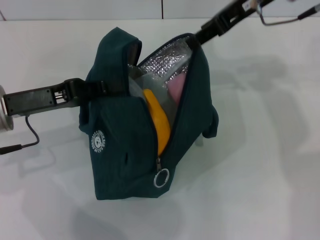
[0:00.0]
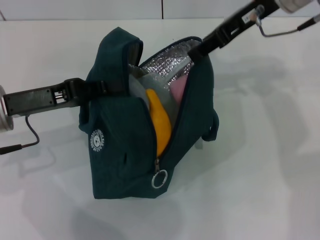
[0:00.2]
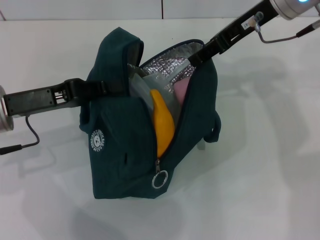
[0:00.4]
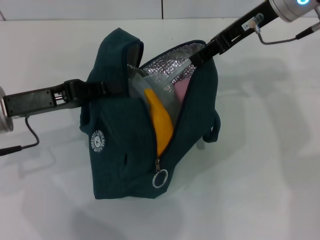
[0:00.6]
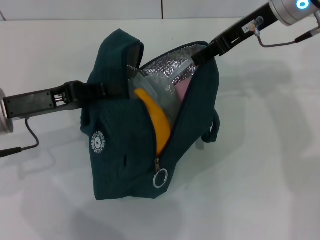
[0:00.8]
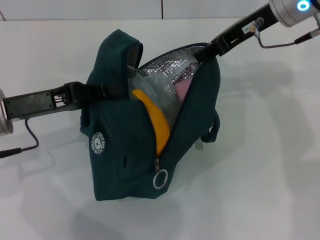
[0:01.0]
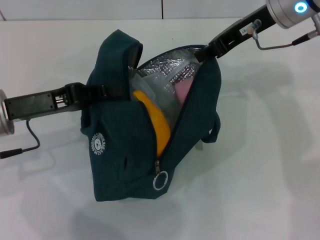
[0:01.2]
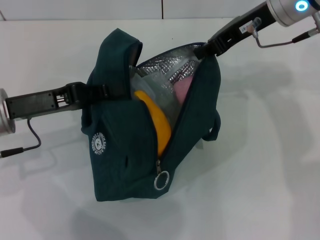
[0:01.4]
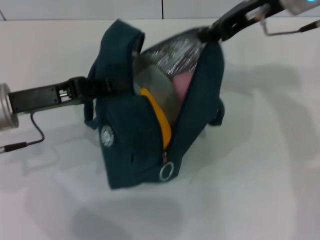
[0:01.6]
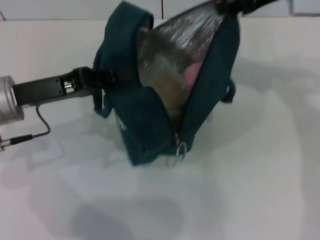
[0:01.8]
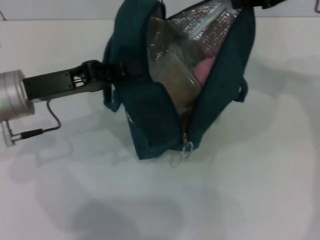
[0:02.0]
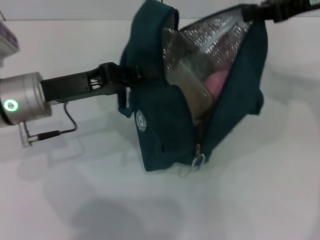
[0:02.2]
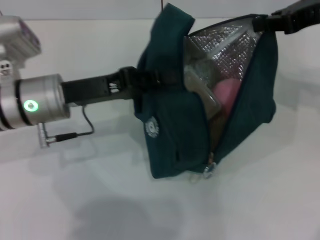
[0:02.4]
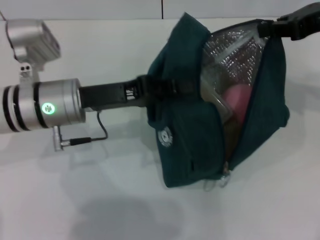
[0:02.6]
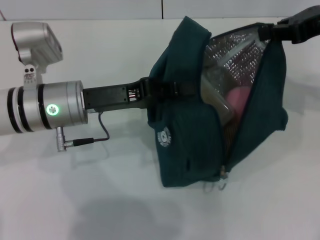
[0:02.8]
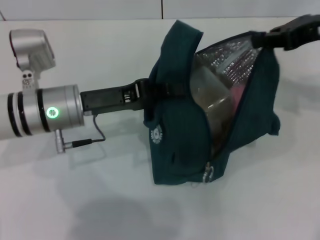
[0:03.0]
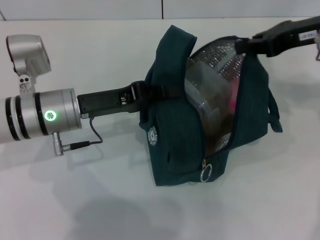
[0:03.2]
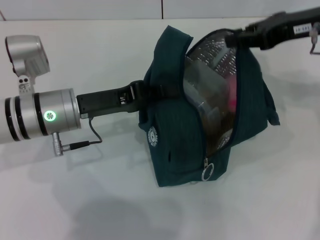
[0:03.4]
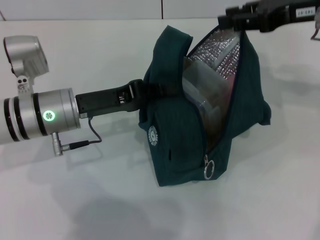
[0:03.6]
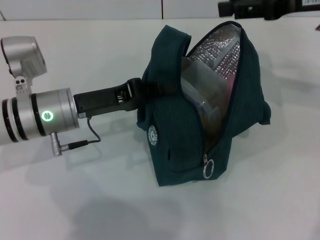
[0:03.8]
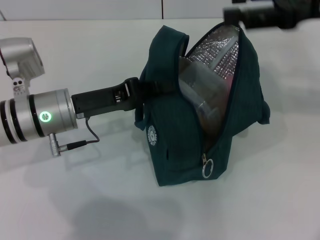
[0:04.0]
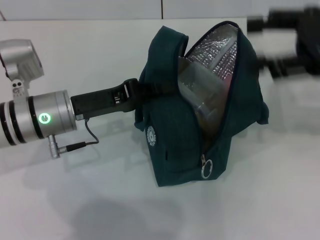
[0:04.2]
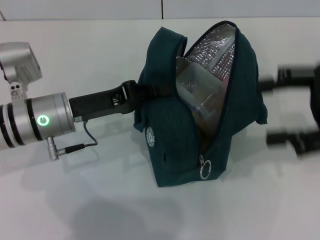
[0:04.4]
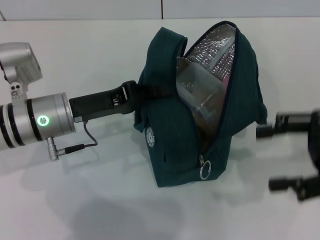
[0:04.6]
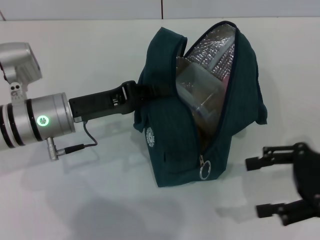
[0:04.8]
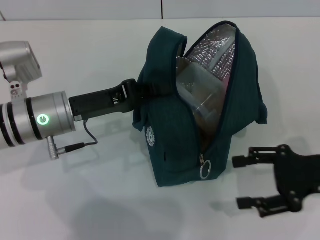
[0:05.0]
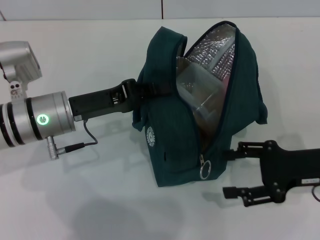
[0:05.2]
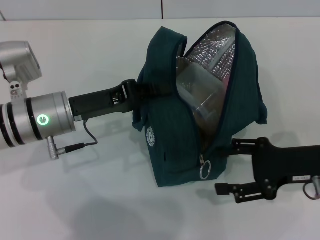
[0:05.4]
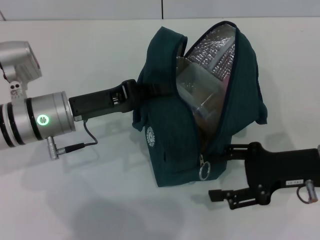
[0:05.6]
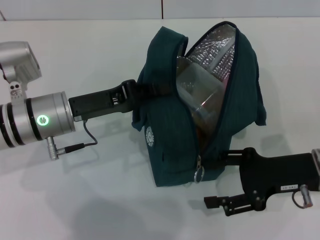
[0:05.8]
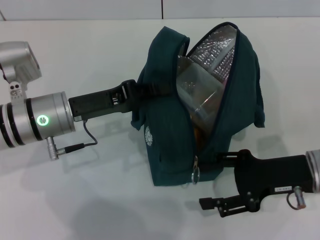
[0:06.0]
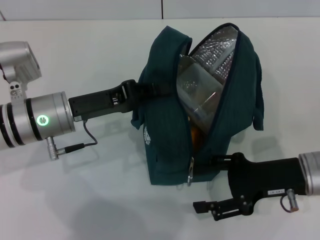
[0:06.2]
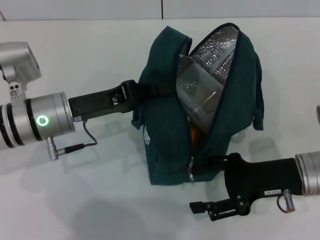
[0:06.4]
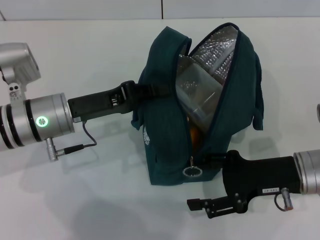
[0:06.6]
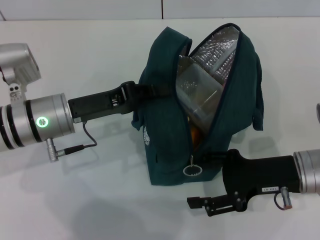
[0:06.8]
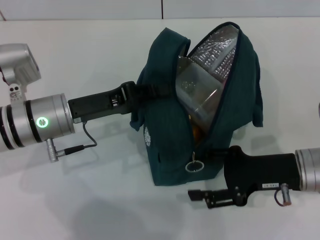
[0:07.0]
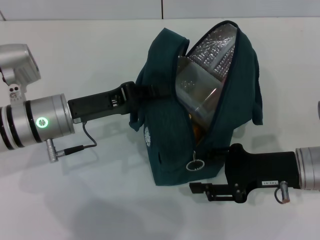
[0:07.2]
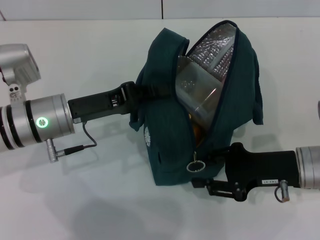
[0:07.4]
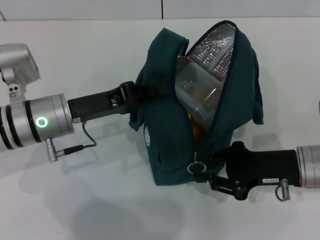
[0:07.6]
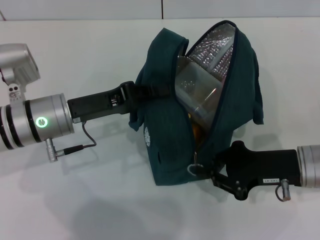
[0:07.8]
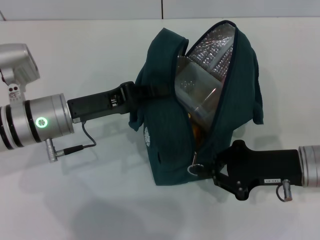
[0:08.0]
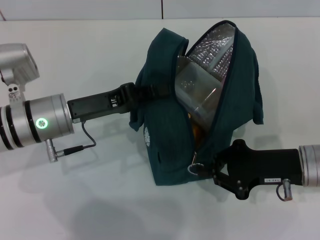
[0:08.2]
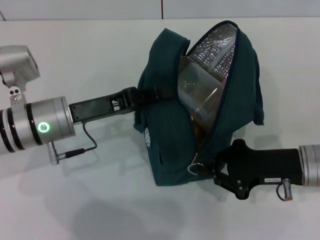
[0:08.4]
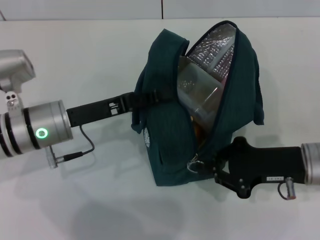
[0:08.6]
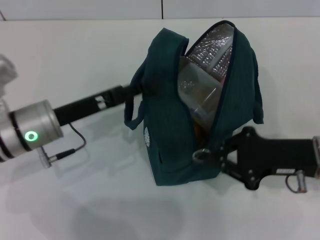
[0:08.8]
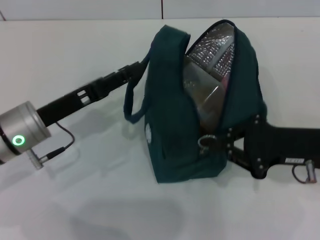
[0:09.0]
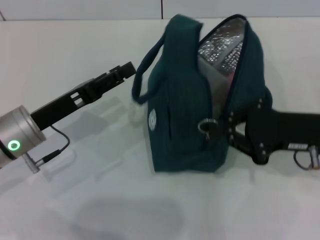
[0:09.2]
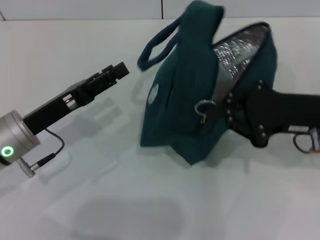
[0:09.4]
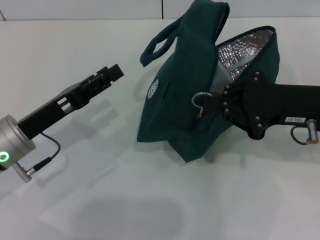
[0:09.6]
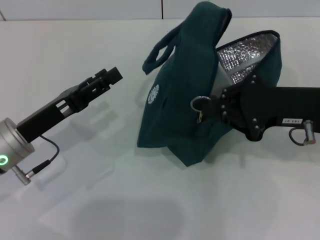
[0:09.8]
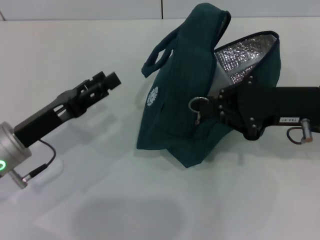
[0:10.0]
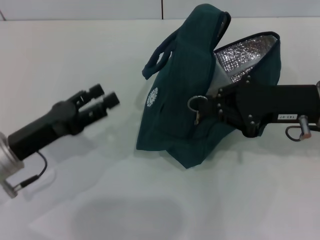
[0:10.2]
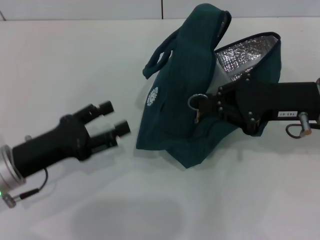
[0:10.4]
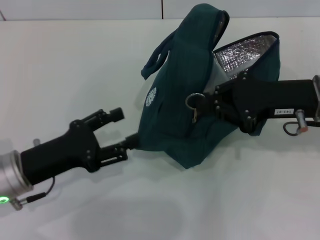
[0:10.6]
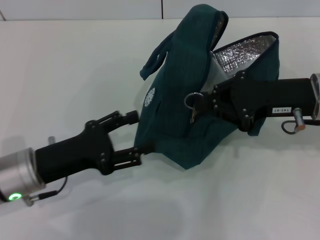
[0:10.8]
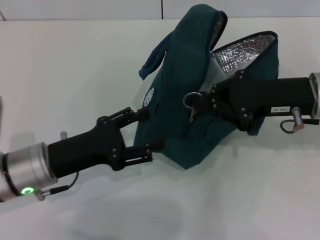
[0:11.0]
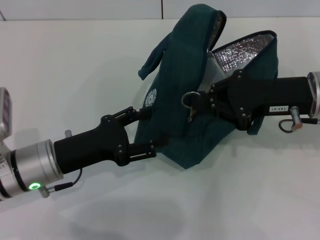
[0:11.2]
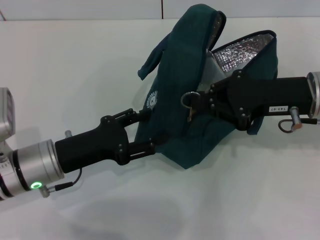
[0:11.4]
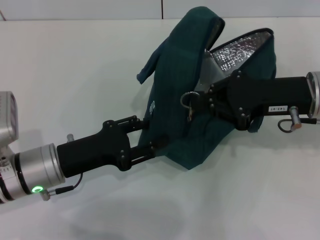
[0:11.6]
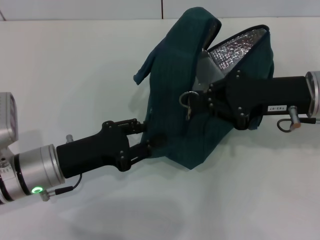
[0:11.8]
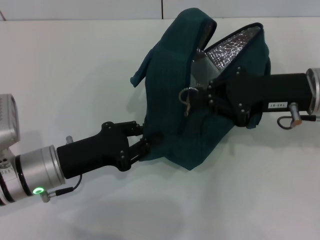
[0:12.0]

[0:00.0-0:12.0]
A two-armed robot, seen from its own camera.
Step, 0:00.0 to 0:03.6: Hold the lunch bag with your right hand.
0:00.0 to 0:01.6: The right gripper closes.
0:01.6 to 0:03.0: The two grippers go some 10 cm to the right.
0:03.0 to 0:04.4: The right gripper travels backward by about 10 cm, and opens its fingers.
0:04.4 to 0:06.0: The right gripper goes some 15 cm downward and to the left.
0:06.0 to 0:07.6: The grippers make only small movements.
0:07.6 to 0:09.0: The right gripper closes up. Meanwhile the left gripper opens its fingers.
0:09.0 to 0:10.4: The right gripper shifts by about 5 cm. The left gripper heads backward, covering roughly 5 cm, and opens its fingers.
0:10.4 to 0:12.0: The left gripper shifts by some 5 cm, and closes.

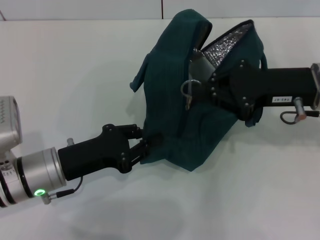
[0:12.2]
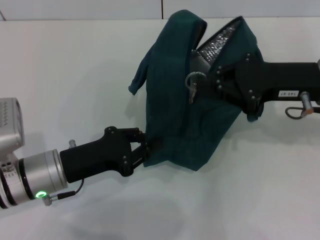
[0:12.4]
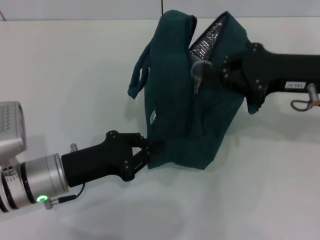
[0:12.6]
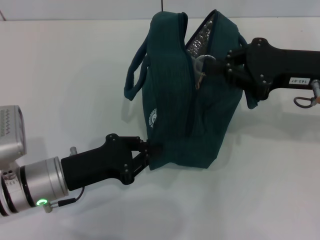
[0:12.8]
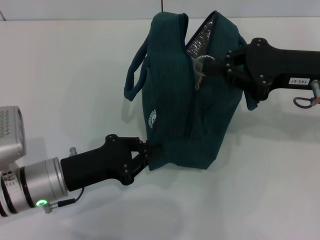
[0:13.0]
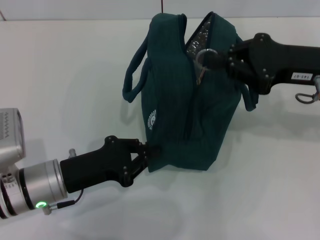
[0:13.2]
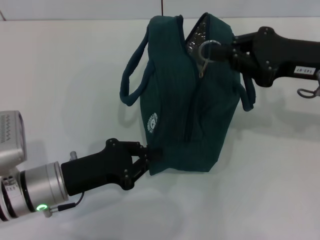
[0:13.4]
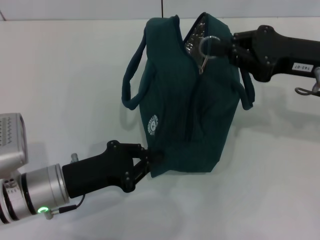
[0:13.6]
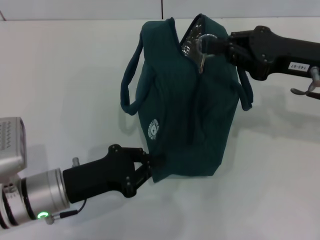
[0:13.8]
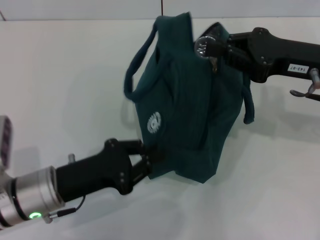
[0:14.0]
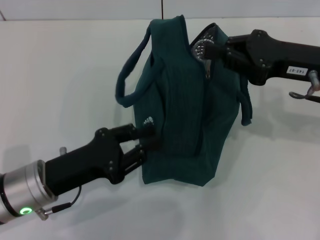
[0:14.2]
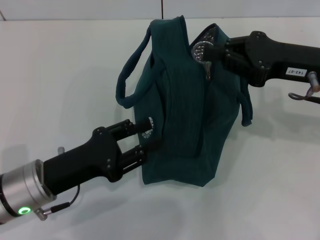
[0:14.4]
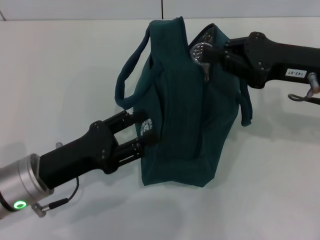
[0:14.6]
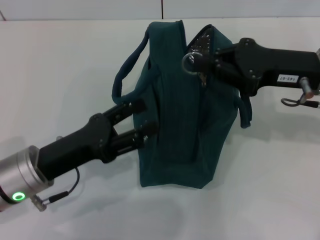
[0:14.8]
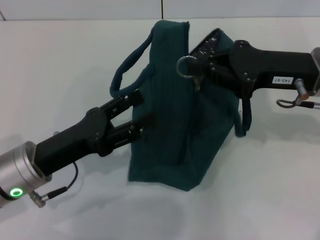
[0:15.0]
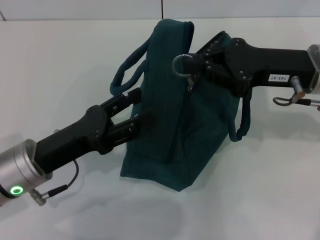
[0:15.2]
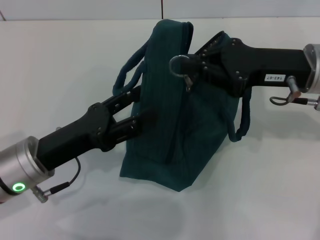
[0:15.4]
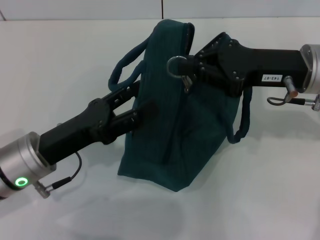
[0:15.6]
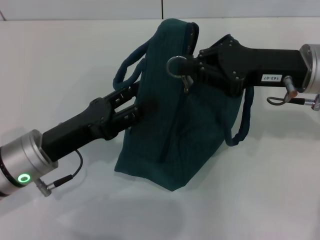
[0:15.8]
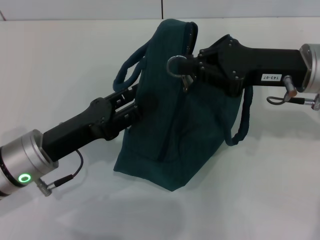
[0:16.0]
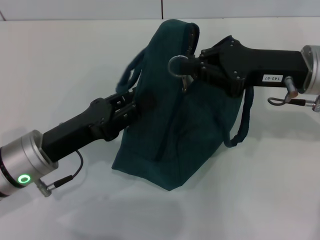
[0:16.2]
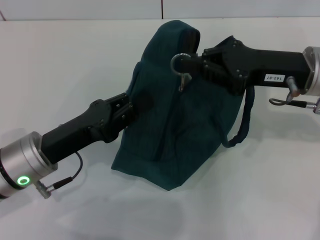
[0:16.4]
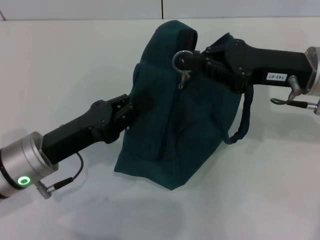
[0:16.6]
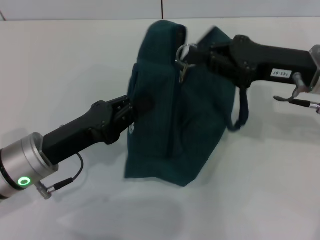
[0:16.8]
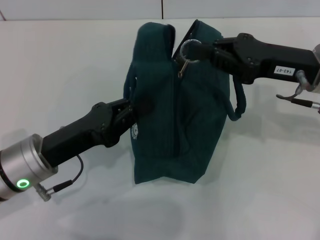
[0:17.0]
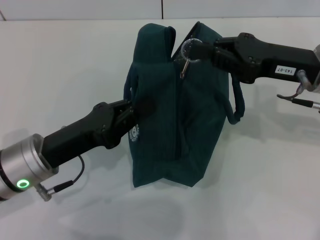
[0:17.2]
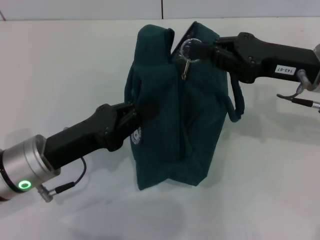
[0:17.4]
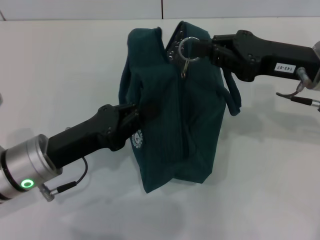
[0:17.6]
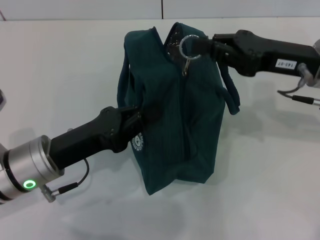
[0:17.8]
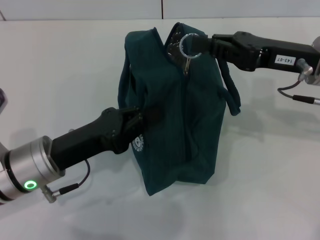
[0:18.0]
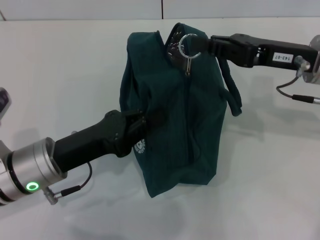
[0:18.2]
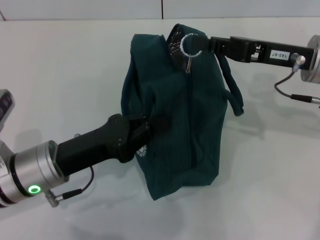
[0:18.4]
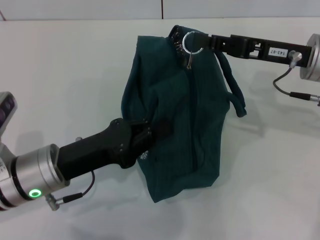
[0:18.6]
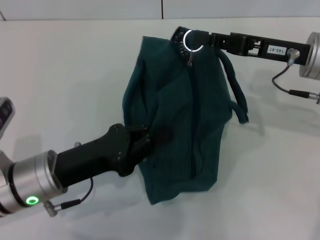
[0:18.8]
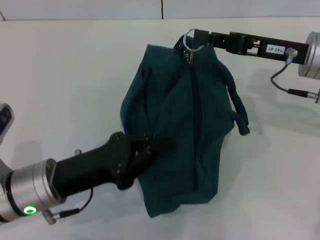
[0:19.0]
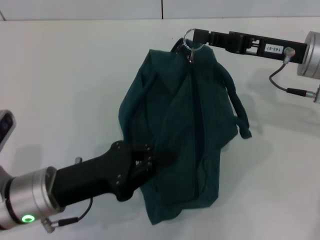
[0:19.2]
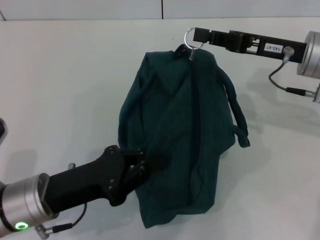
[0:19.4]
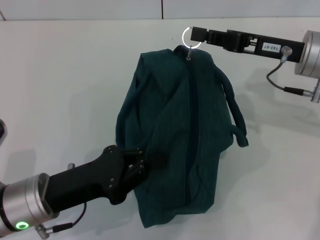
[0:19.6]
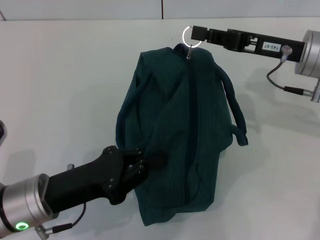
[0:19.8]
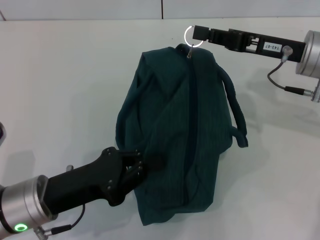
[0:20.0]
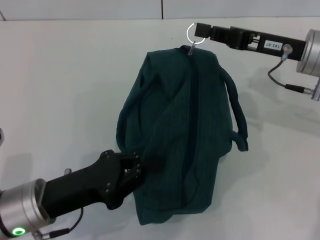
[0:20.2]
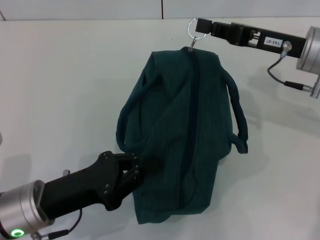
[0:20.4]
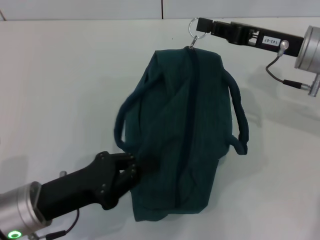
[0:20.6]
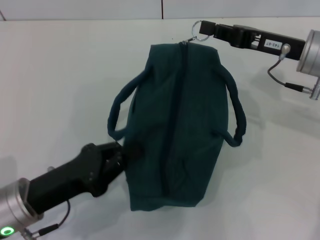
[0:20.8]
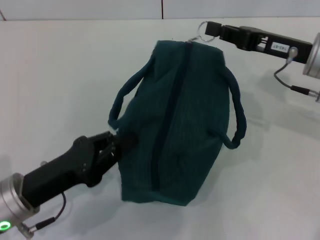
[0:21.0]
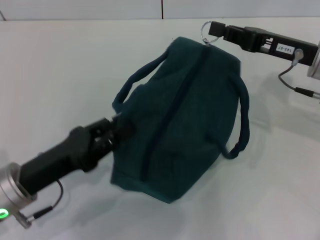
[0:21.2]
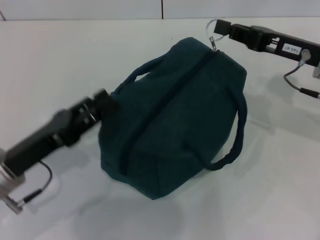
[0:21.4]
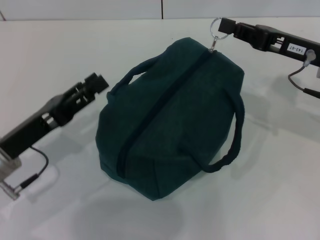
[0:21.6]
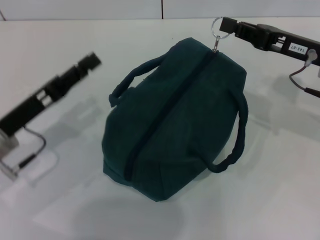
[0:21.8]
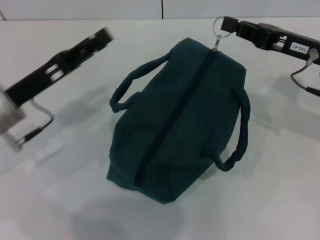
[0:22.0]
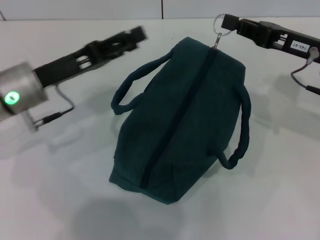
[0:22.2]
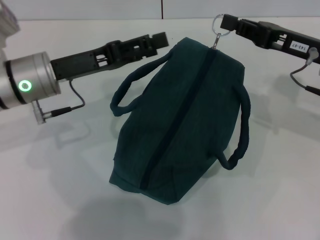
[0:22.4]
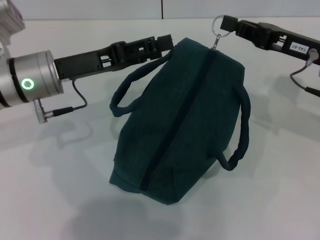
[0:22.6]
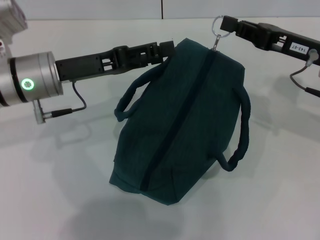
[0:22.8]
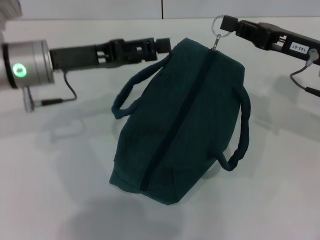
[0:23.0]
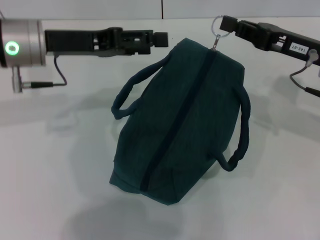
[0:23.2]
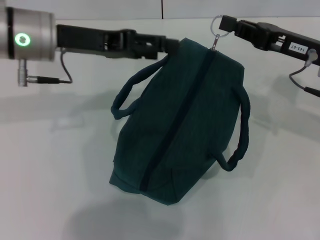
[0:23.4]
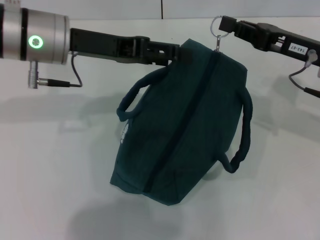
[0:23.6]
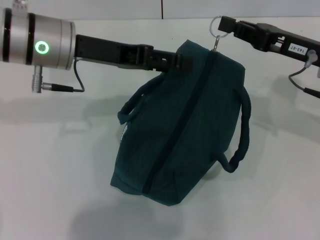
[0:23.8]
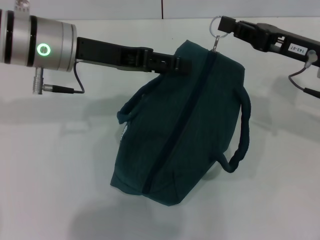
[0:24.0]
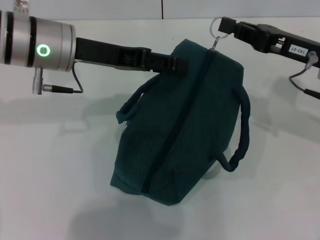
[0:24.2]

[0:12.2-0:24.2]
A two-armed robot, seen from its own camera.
0:13.8 to 0:15.2: The left gripper opens.
0:15.2 to 0:16.6: The left gripper closes its fingers.
0:21.2 to 0:22.6: The left gripper heads forward and upward, covering some 15 cm, and opens its fingers.
0:22.6 to 0:24.2: The left gripper shifts roughly 5 cm upward.
